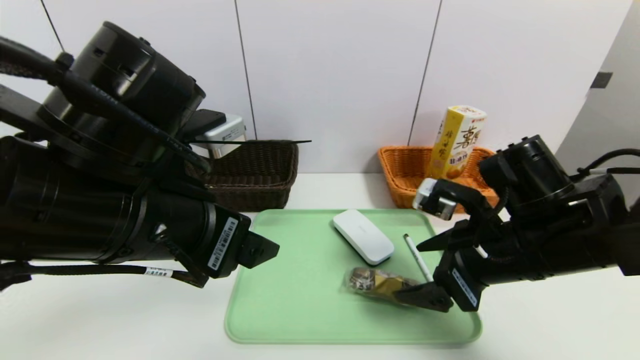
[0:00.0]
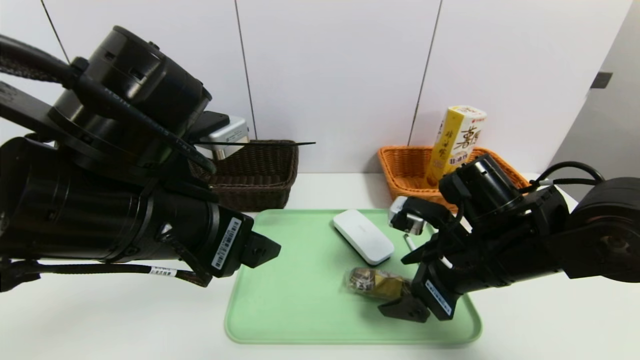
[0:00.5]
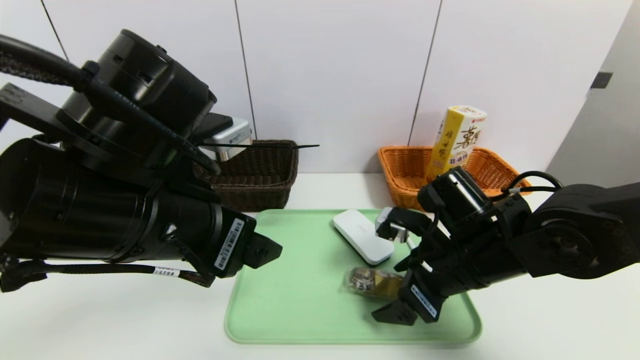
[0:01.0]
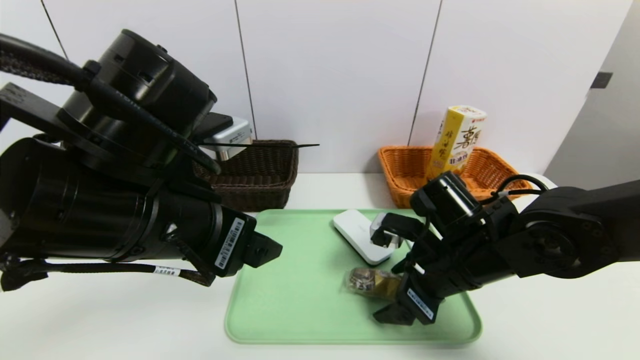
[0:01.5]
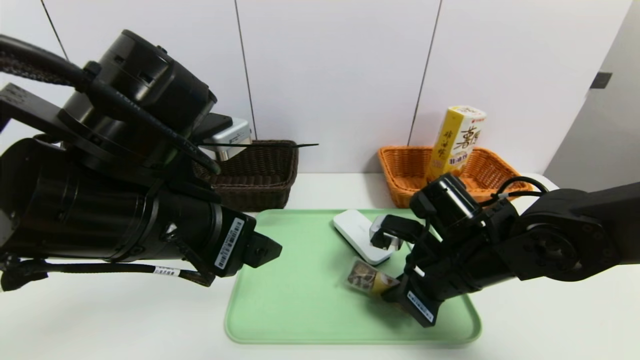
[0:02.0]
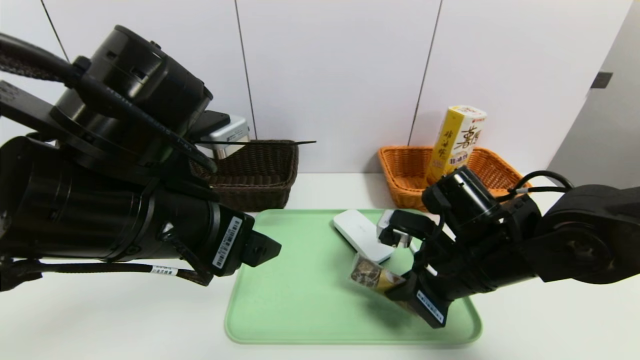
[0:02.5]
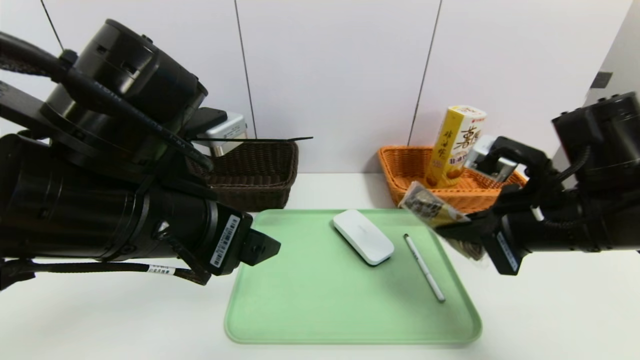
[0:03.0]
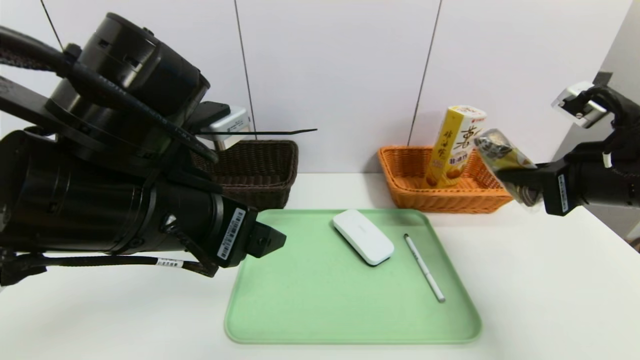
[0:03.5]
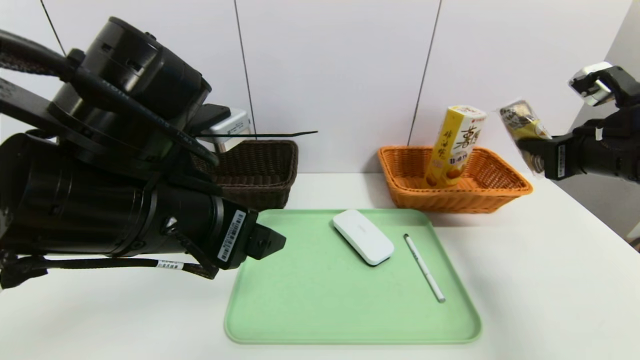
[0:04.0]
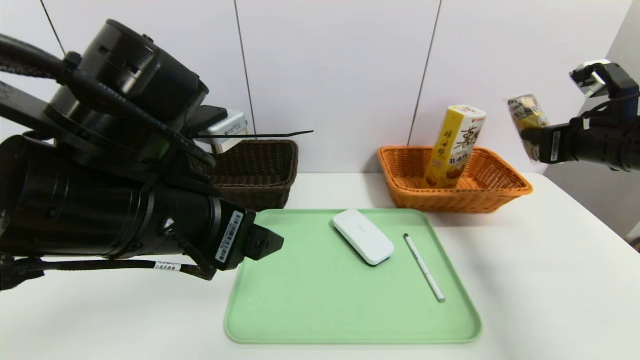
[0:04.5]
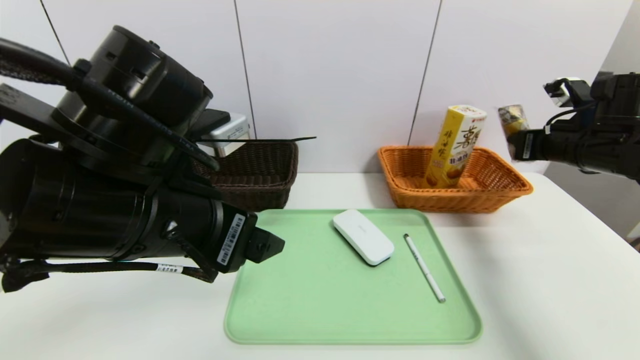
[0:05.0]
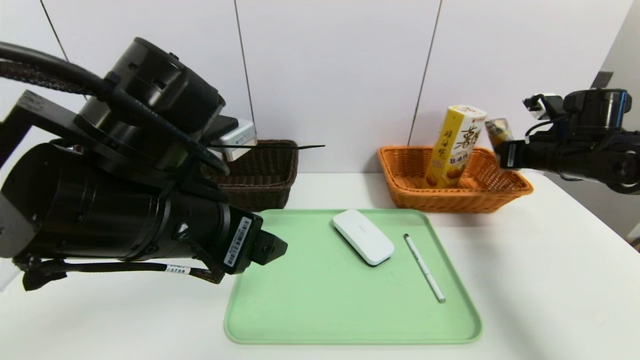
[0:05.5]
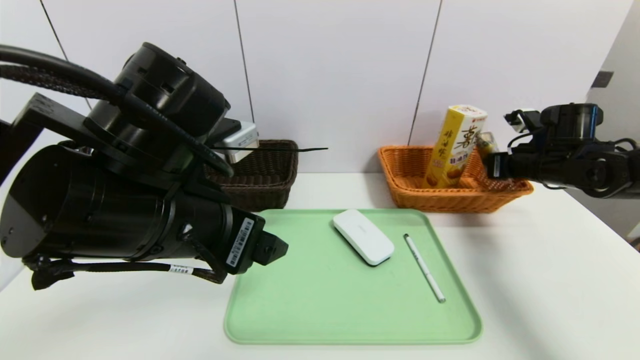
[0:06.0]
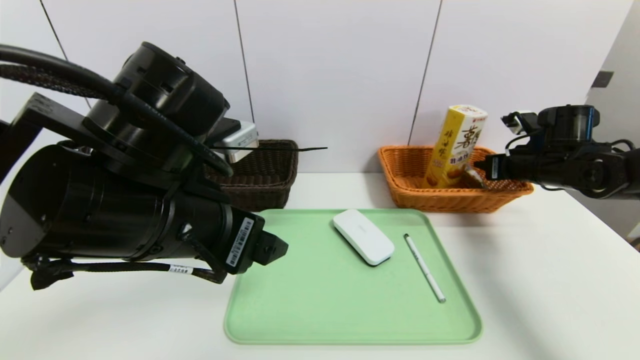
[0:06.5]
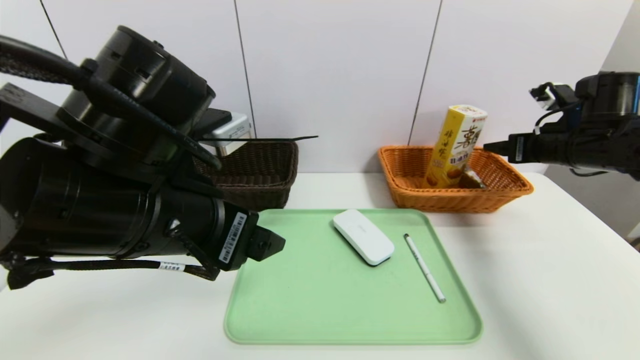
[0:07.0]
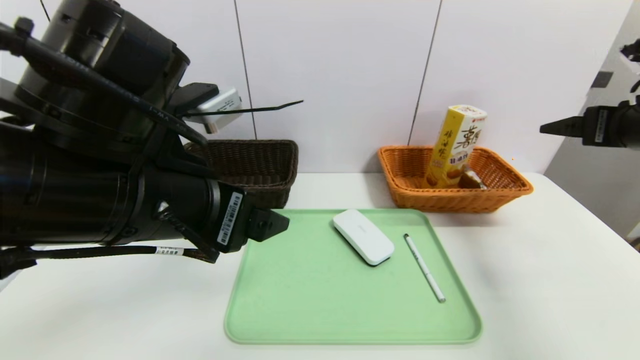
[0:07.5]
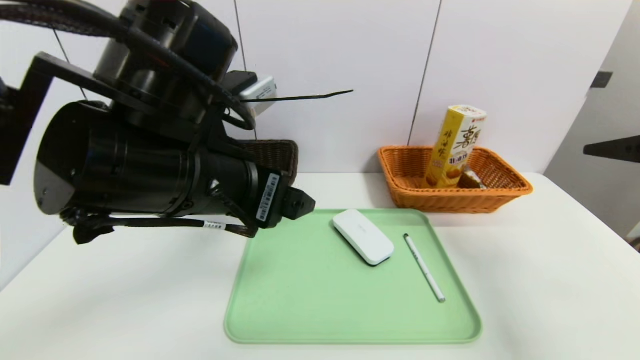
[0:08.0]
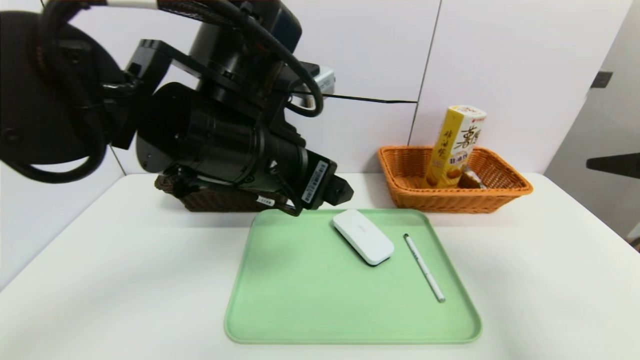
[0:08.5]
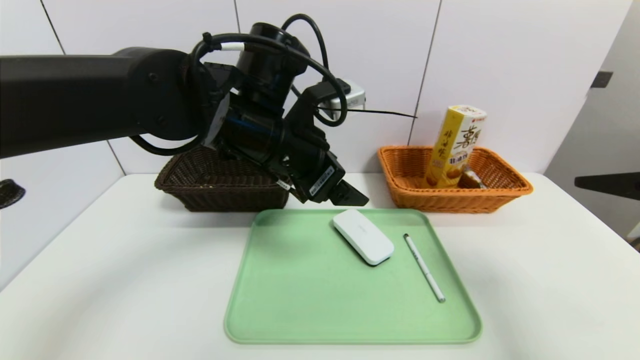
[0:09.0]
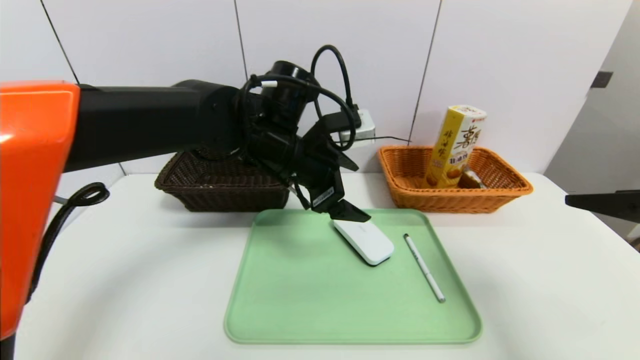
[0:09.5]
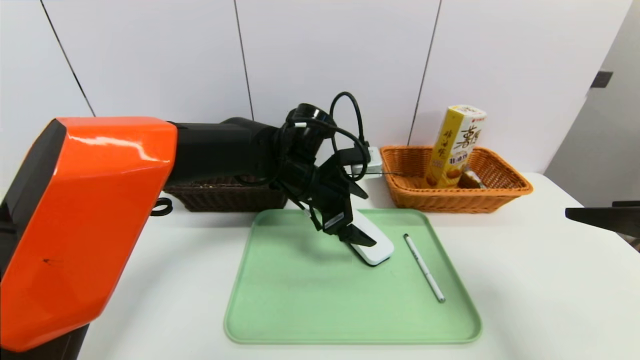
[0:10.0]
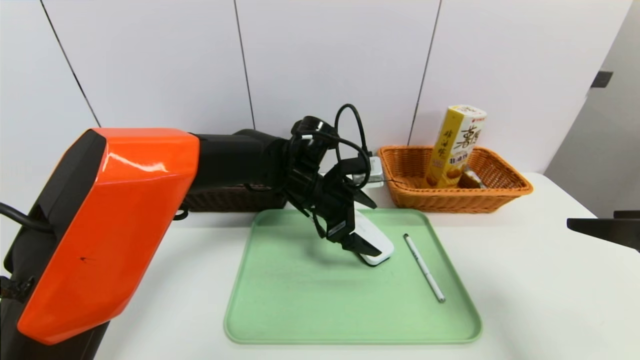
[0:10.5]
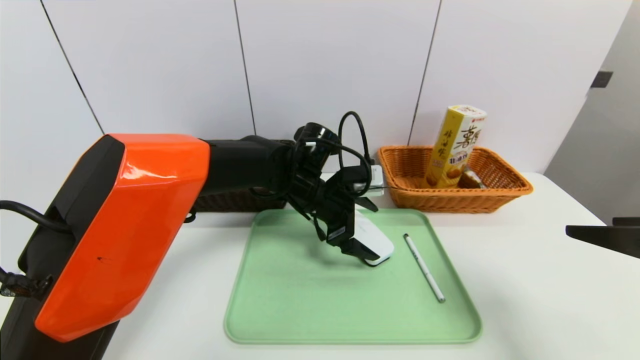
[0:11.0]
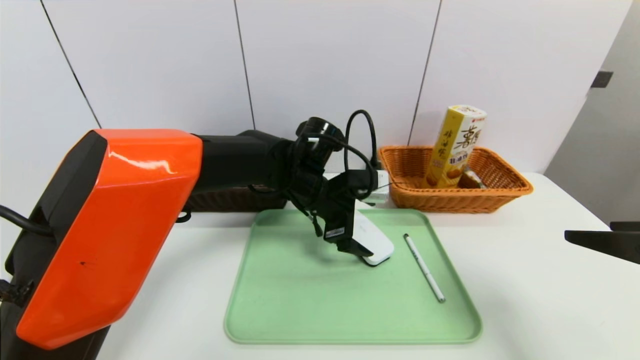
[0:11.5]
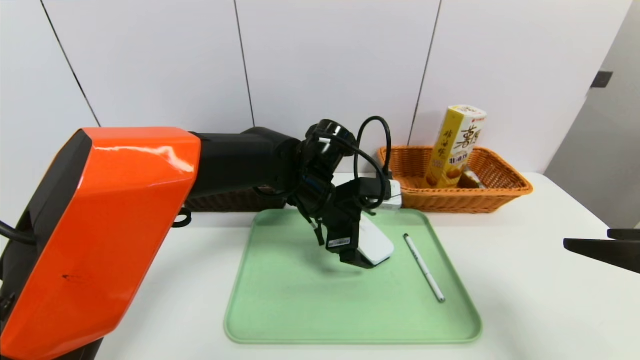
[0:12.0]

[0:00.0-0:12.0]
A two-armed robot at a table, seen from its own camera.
Task of the whole recording: place the food in the right basket with the right gripper, and place the non food items in the left basket with the left gripper.
Step, 0:00.0 to 0:07.0: Grasp the chocolate and put it in the right basket.
0:00.0 to 0:02.0: The right gripper moves downward, roughly 5 cm, and closes up.
0:02.0 to 0:04.0: The right gripper heads to the right and upward, covering approximately 20 cm.
0:04.0 to 0:06.0: The right gripper heads forward and downward, covering approximately 15 cm.
0:06.0 to 0:08.0: The right gripper shifts roughly 25 cm backward and upward, and opens up.
0:08.0 to 0:10.0: The left gripper heads forward, downward and to the right, covering roughly 20 cm. Meanwhile the right gripper heads backward, covering about 5 cm.
0:10.0 to 0:12.0: The grippers make only small movements.

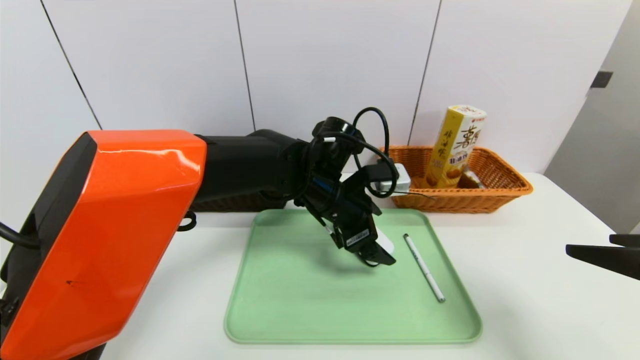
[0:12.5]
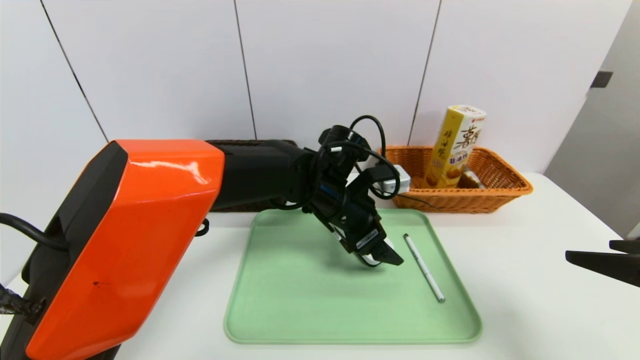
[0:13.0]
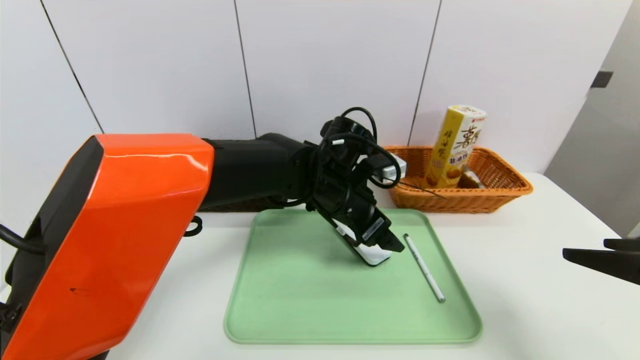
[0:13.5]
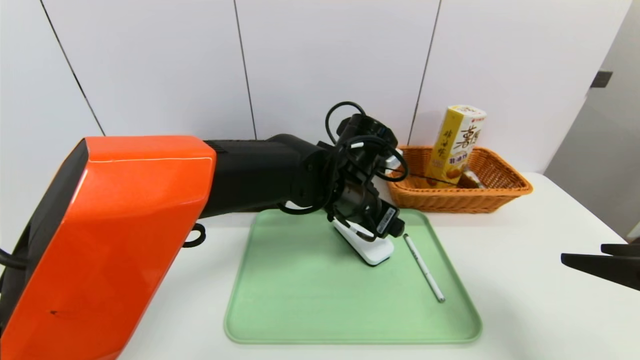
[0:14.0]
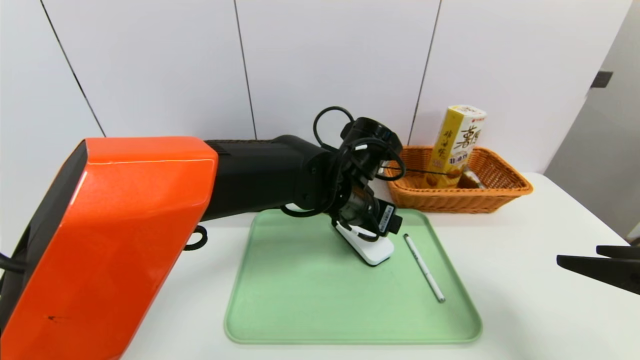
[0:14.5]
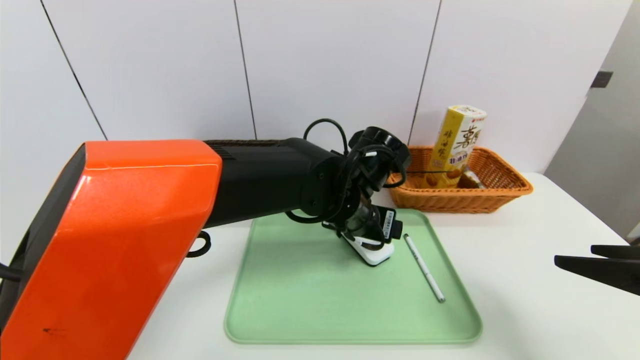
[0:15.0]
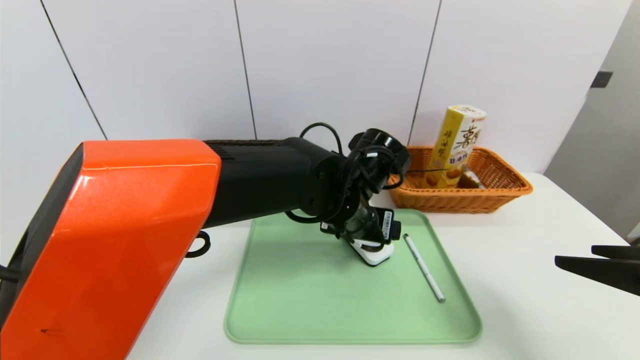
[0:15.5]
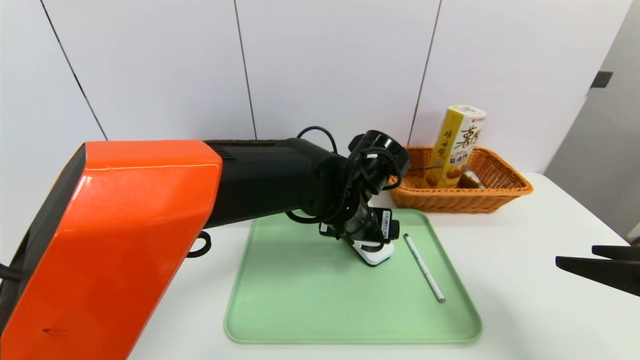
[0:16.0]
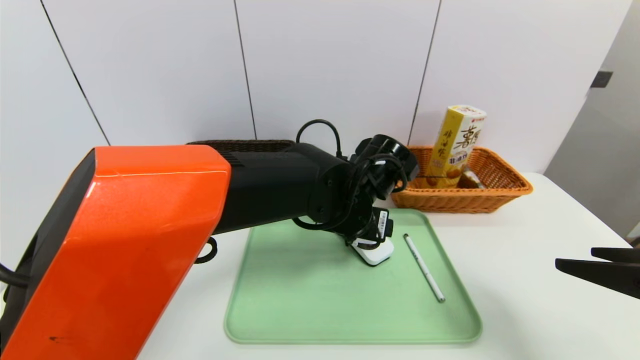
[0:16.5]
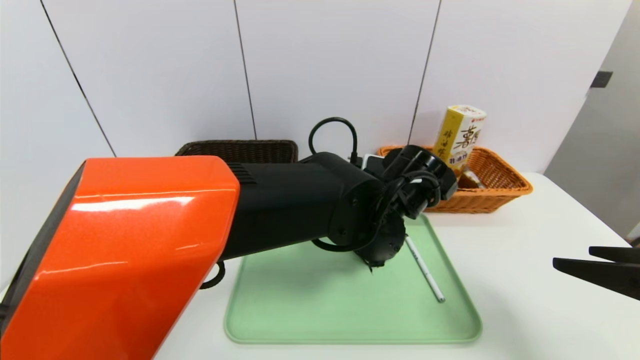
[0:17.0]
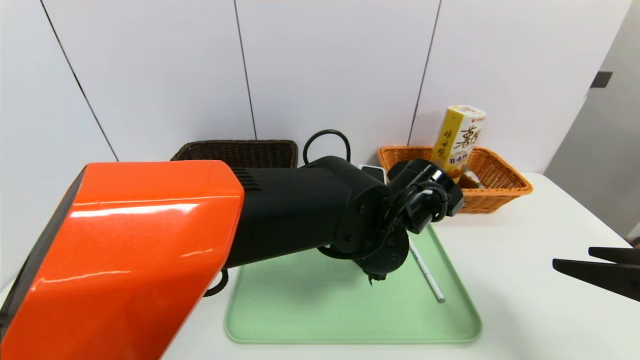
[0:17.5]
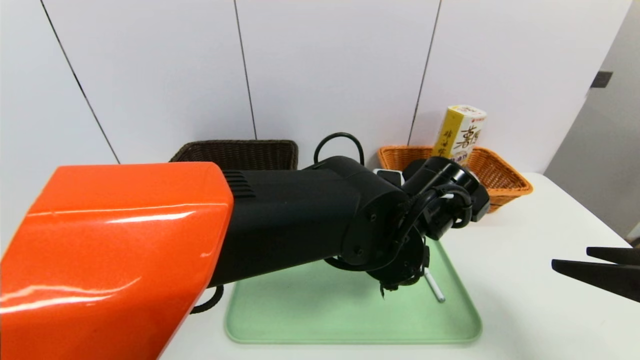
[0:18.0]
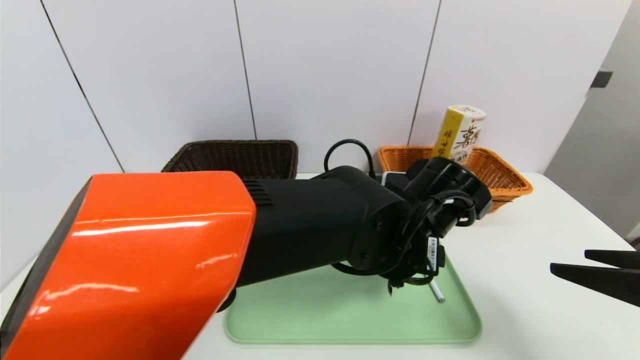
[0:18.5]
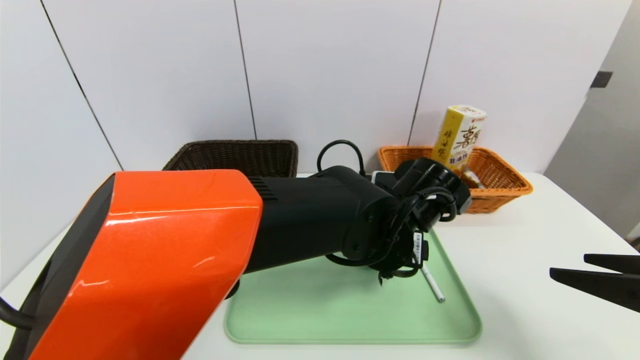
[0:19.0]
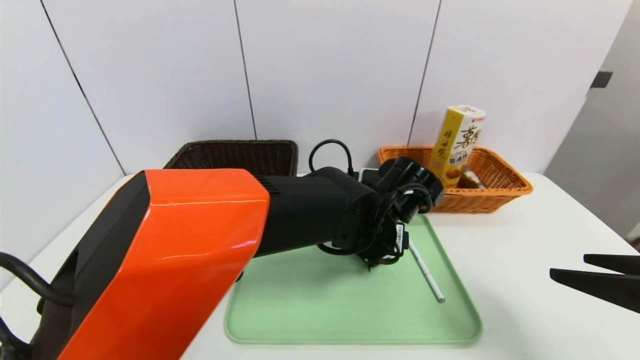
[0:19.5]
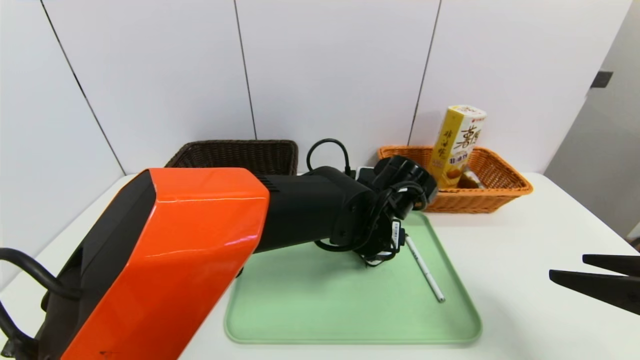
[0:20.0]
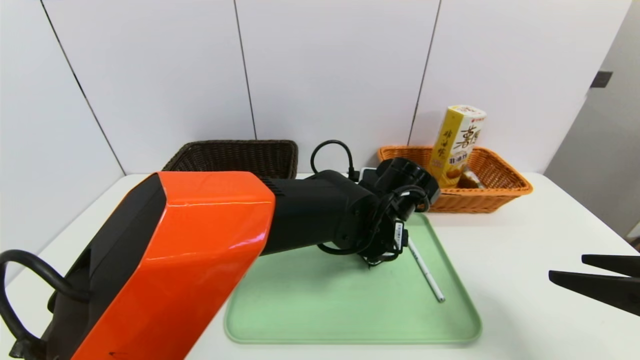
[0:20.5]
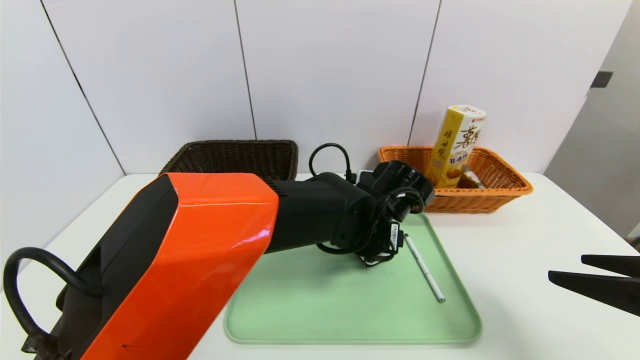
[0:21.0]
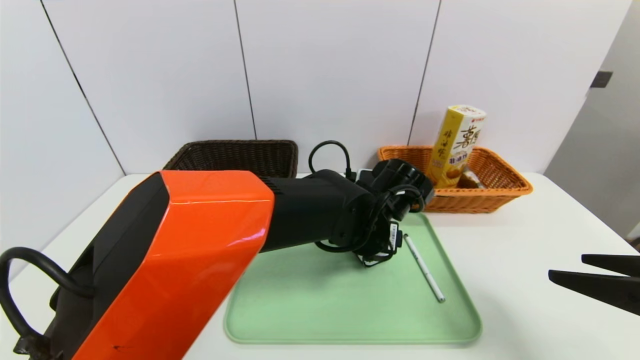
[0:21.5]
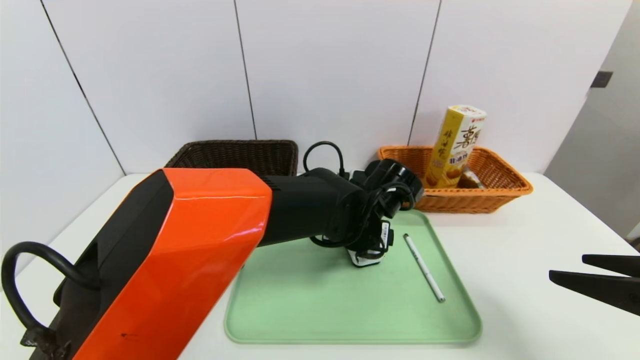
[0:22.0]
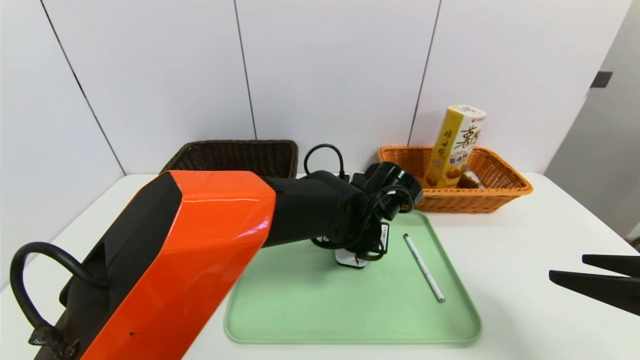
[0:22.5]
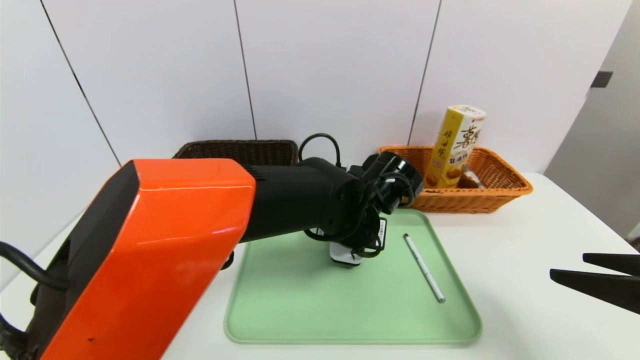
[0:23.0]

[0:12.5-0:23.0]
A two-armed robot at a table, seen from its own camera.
Task of the whole recording: place the food in the right basket with the right gripper, and place the non food items in the left basket with the left gripper.
0:14.5 to 0:16.5: The grippers make only small movements.
0:16.5 to 0:19.0: The left gripper shifts by about 5 cm.
0:19.0 to 0:21.0: The grippers make only small movements.
0:21.0 to 0:23.0: The left gripper closes.
